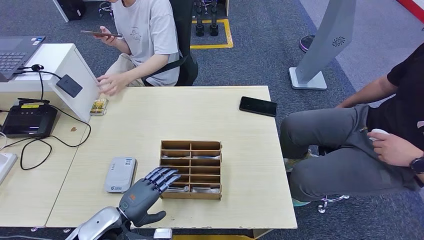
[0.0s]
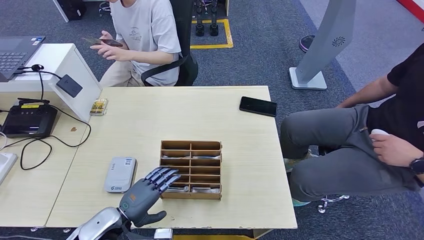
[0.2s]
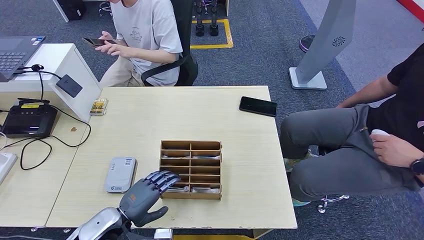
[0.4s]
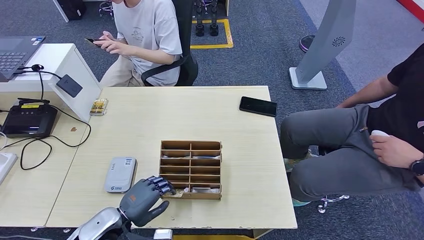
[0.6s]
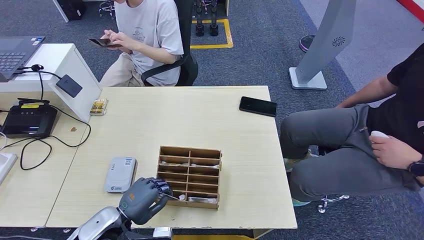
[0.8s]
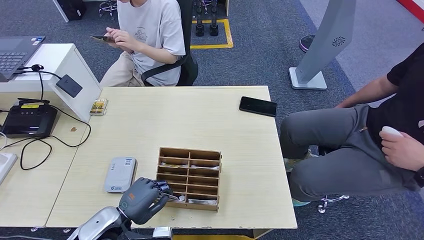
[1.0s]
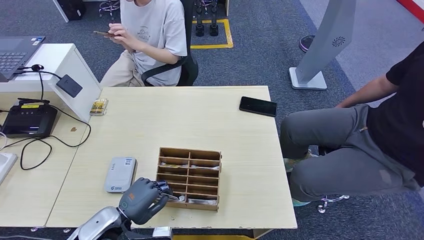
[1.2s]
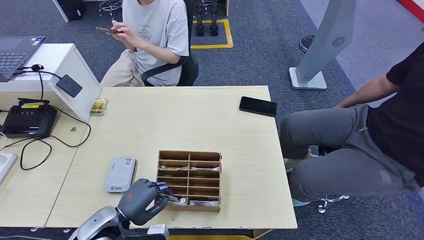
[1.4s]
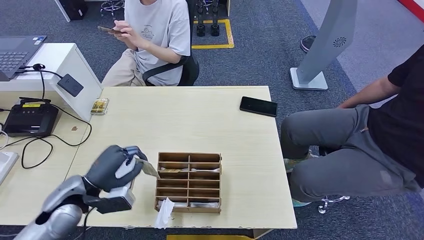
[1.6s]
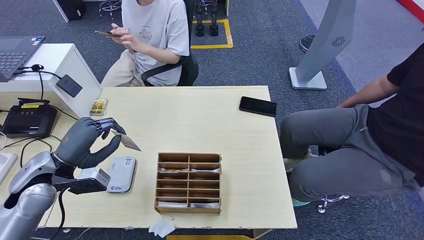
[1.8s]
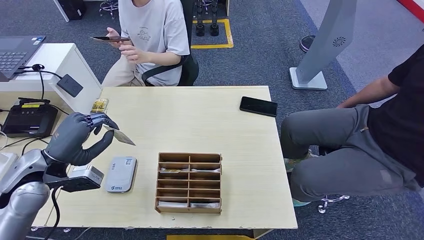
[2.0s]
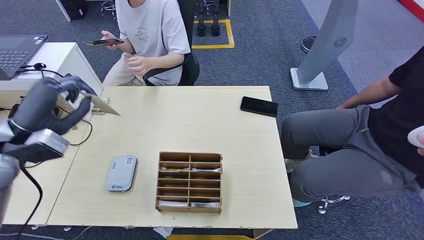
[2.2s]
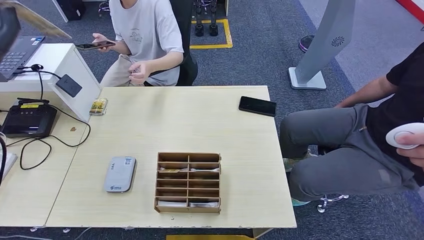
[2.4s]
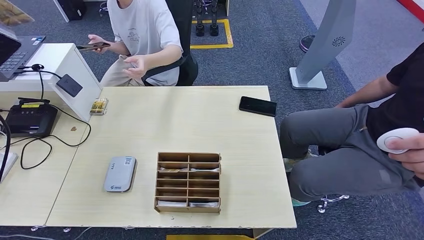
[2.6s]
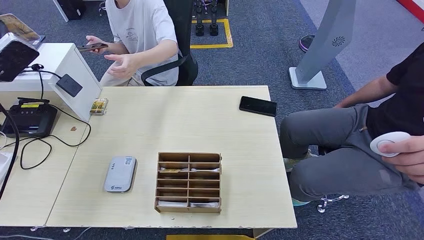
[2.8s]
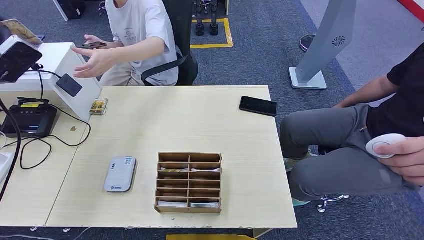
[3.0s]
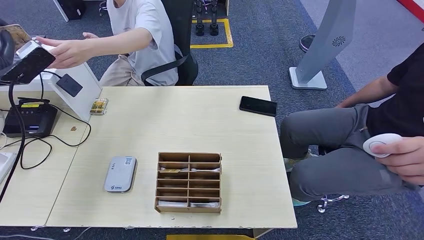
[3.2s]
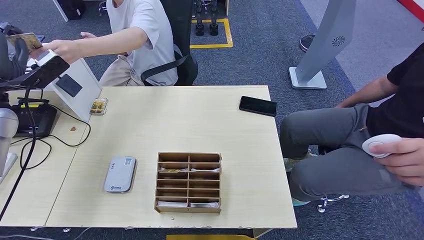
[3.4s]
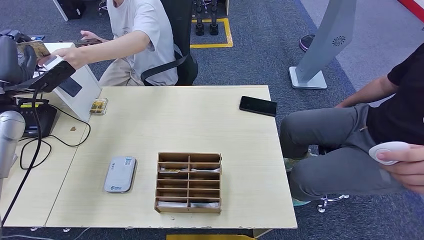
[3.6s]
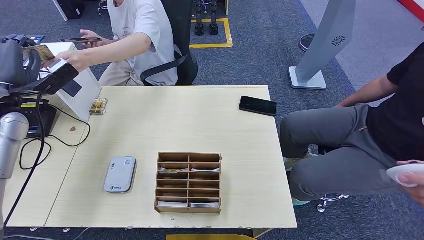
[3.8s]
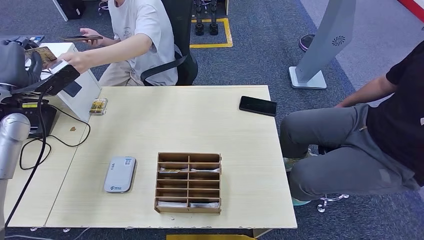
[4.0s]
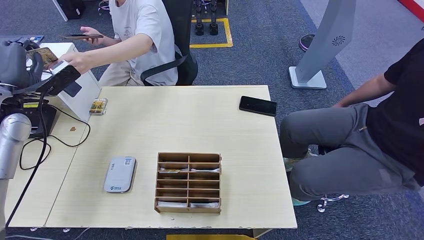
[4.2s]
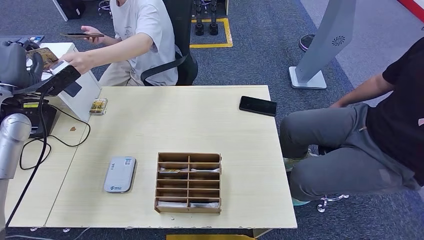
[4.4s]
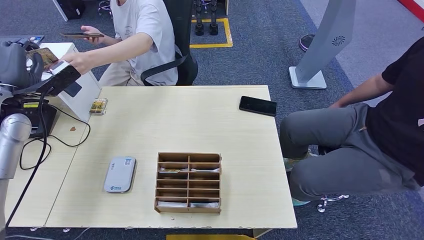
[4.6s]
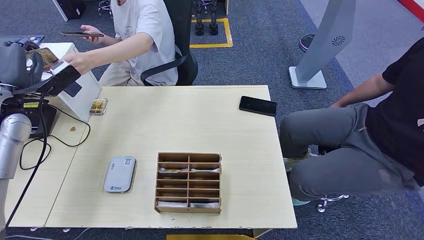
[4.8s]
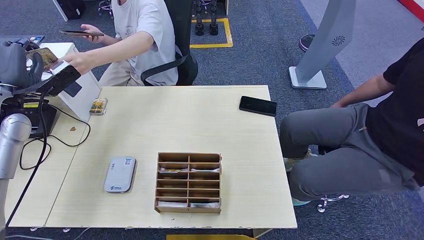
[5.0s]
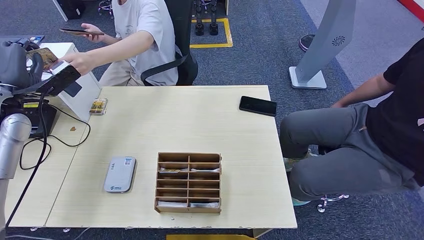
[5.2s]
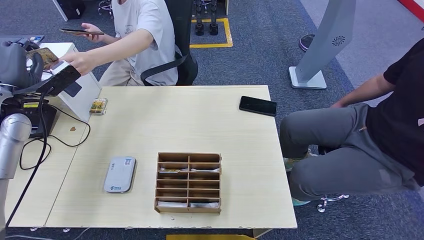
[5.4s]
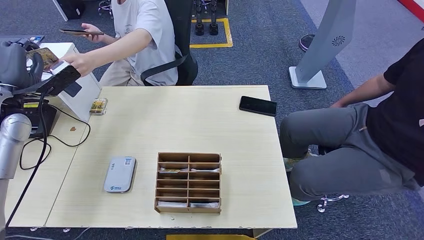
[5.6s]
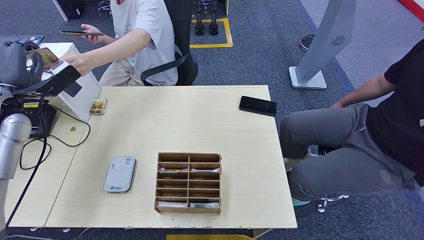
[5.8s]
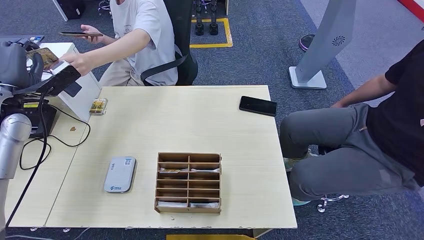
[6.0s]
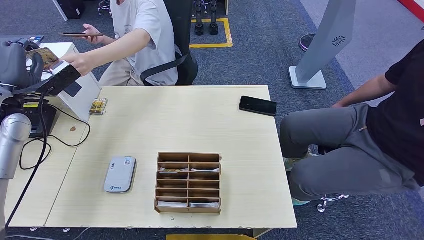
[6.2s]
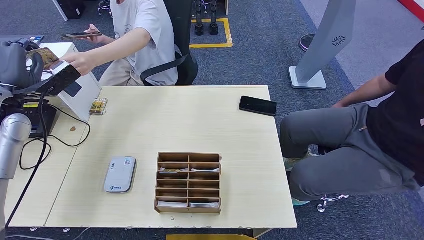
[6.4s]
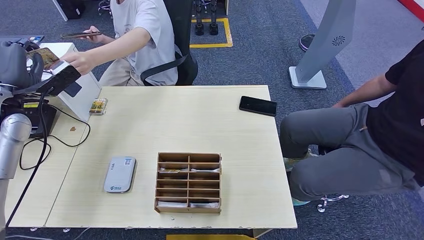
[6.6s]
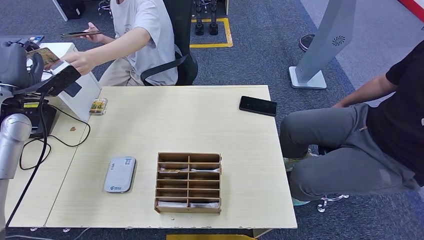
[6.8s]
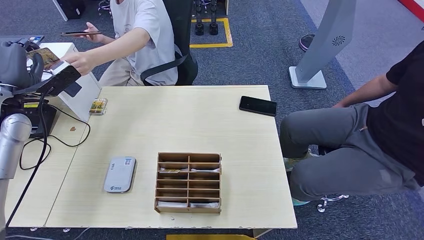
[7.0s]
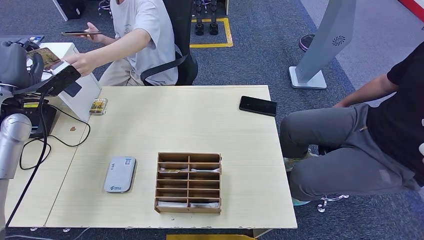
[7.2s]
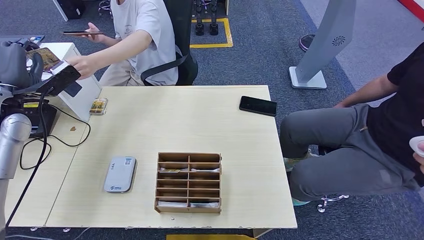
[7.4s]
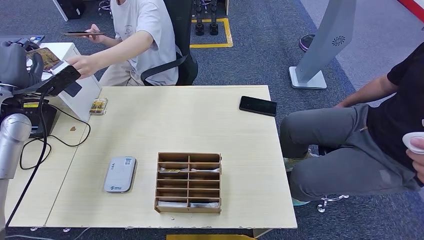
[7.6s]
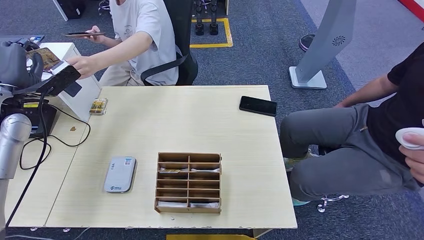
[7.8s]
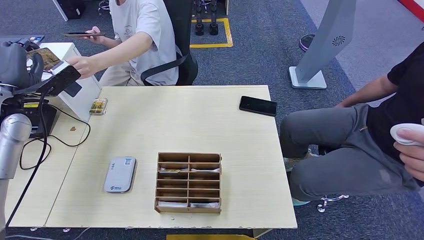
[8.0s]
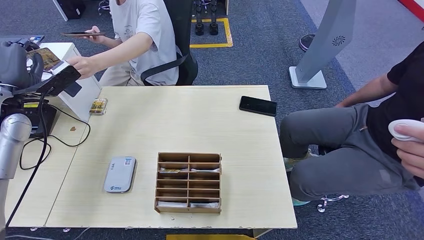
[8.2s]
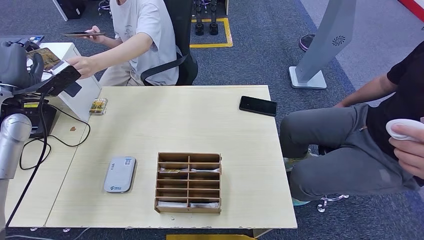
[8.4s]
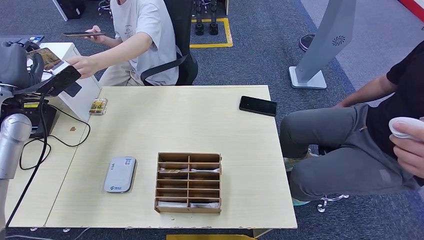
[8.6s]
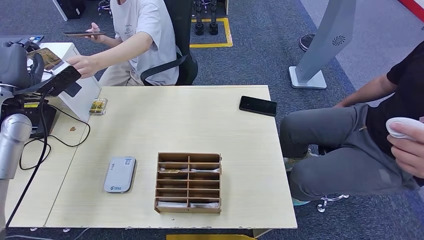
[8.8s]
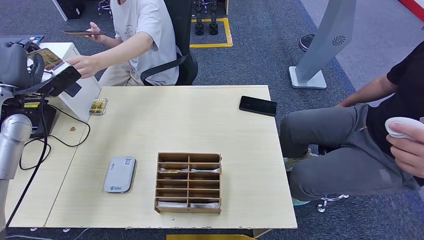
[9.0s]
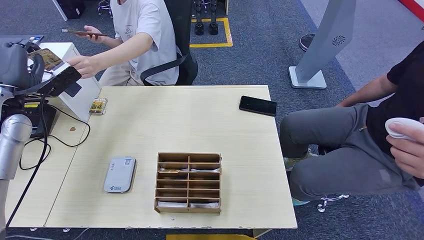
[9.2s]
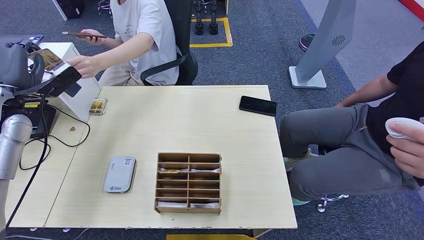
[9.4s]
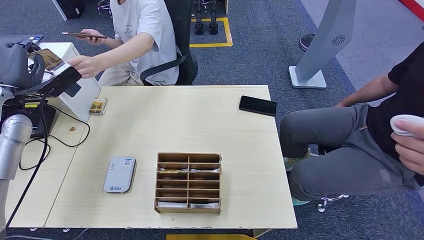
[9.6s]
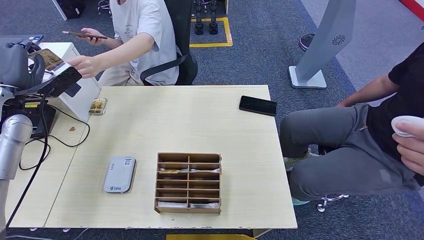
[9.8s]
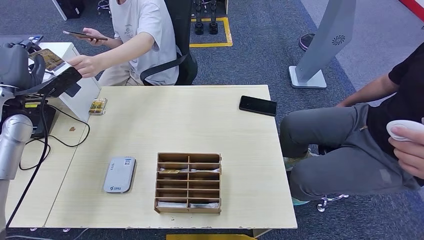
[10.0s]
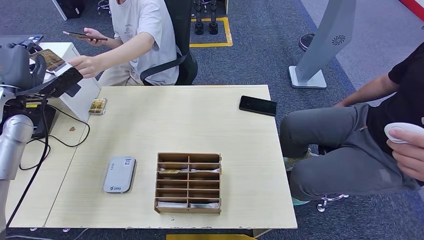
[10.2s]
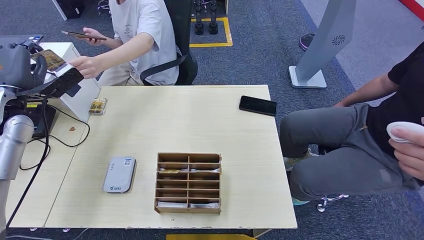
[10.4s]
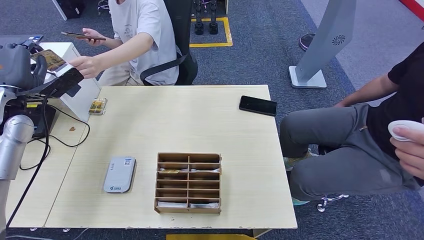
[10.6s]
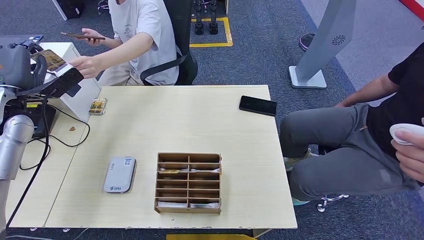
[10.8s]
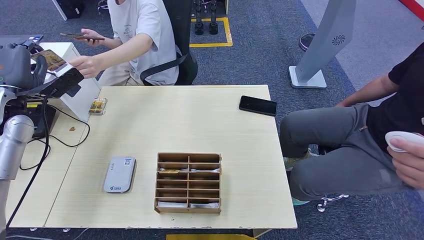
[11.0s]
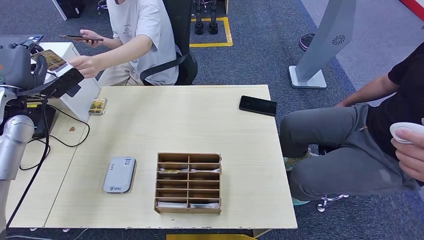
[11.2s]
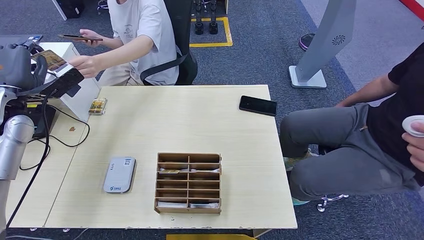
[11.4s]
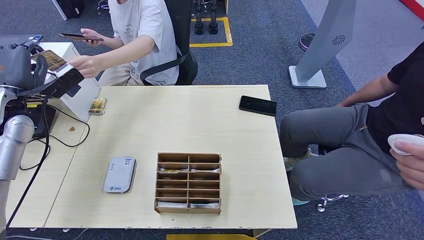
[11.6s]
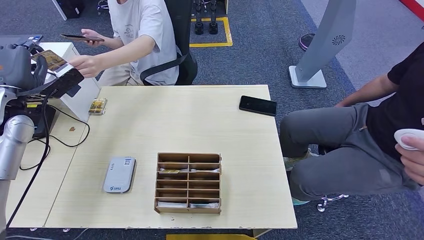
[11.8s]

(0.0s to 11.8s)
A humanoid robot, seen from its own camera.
Step, 0.0s - 2.6s: Pick up the room key from the key card box.
0.0s - 1.4s: The hands stay close to where they were, moving slightly.
1.4s - 3.0s: The left hand goes about 40 cm upward, to the left and forward.
3.0s - 4.4s: The left hand travels downward by some 5 cm.
4.4s - 11.8s: Both hands stay about where they are.

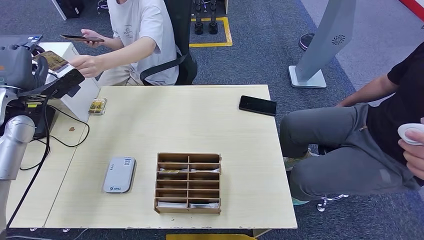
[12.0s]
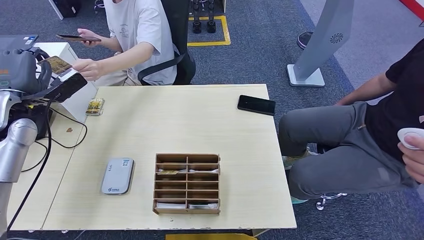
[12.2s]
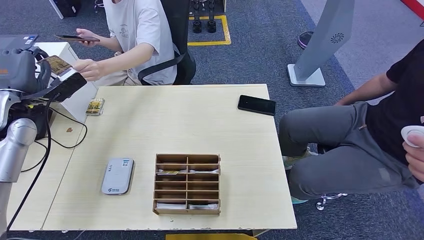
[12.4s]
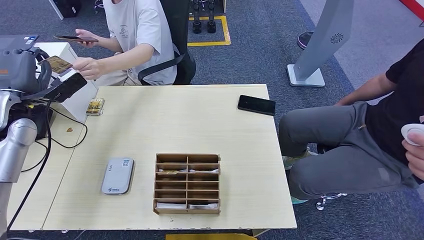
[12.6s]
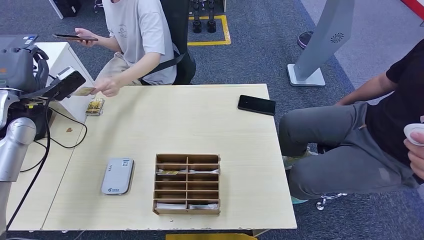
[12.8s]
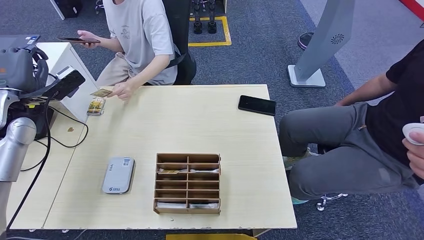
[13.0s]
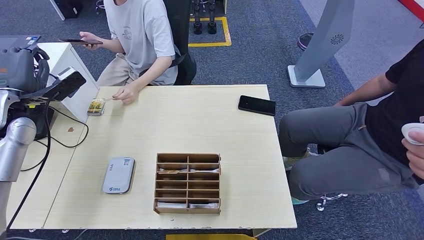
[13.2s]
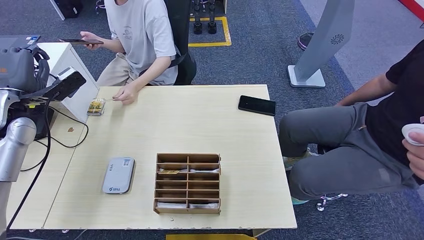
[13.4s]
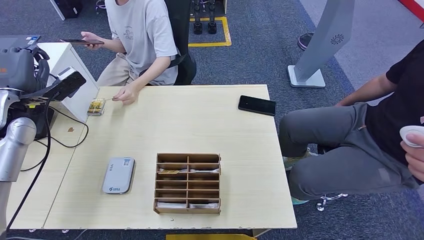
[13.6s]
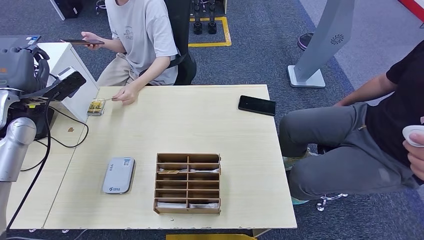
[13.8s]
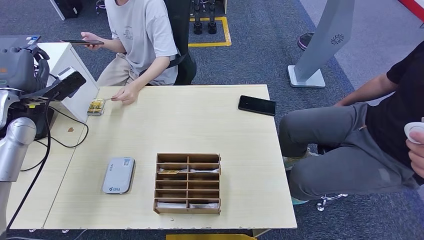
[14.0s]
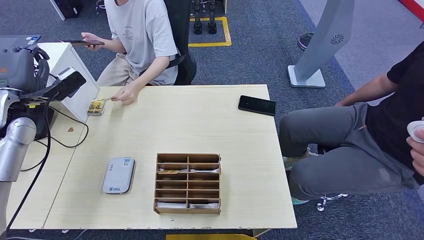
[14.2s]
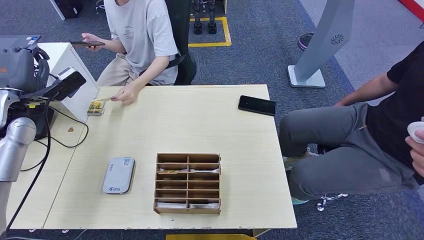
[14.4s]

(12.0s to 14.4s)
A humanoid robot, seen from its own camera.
Step, 12.0s - 14.4s: Hand the room key to the person.
12.0s - 14.4s: The two hands keep their place.
